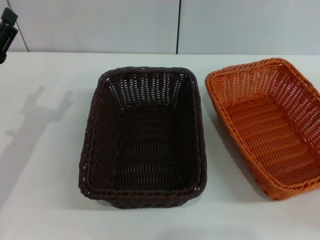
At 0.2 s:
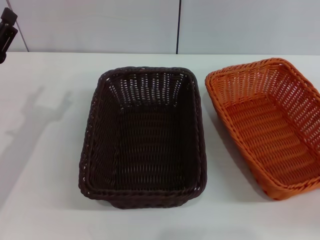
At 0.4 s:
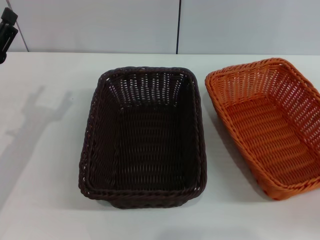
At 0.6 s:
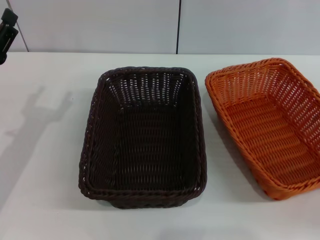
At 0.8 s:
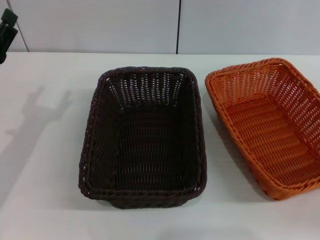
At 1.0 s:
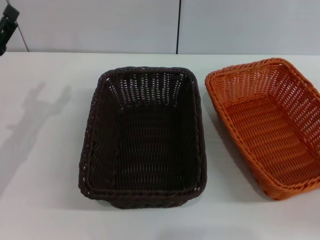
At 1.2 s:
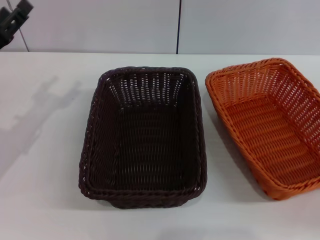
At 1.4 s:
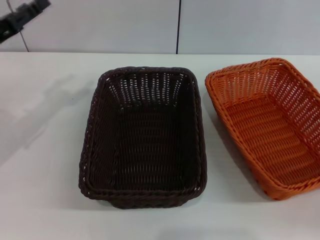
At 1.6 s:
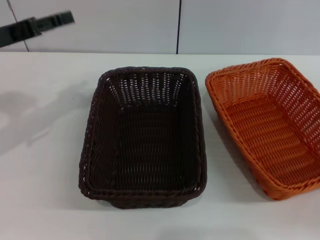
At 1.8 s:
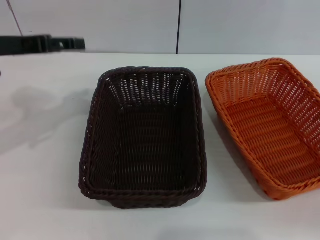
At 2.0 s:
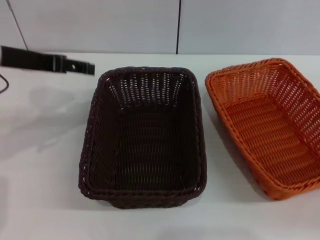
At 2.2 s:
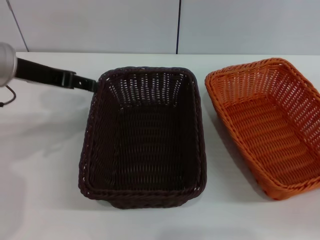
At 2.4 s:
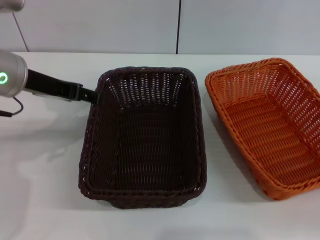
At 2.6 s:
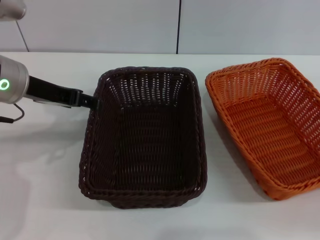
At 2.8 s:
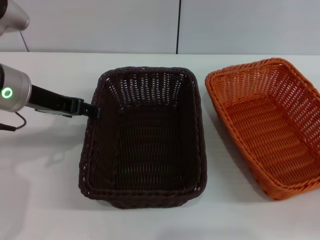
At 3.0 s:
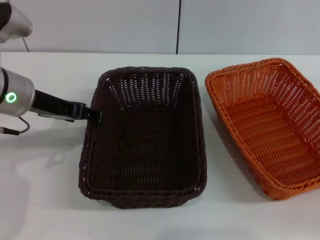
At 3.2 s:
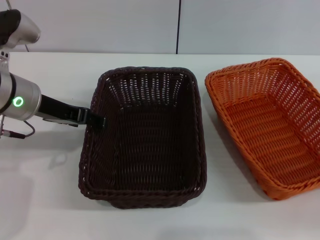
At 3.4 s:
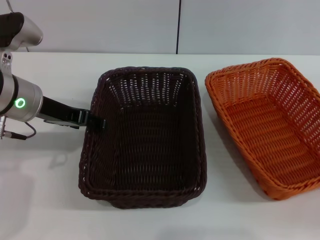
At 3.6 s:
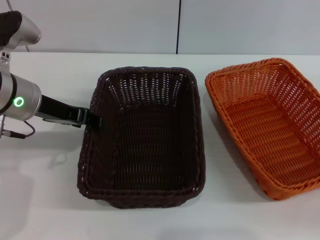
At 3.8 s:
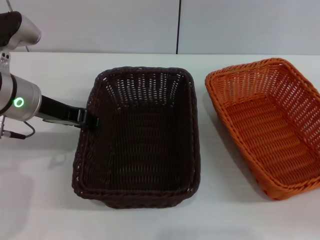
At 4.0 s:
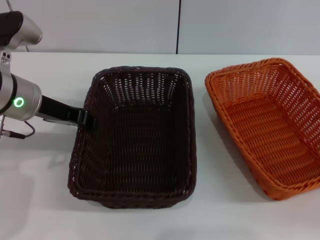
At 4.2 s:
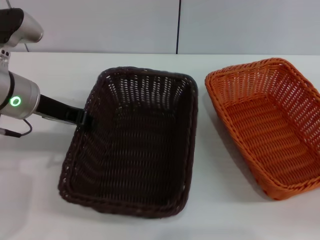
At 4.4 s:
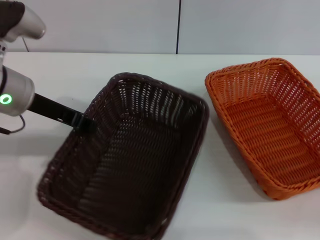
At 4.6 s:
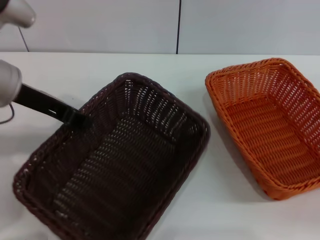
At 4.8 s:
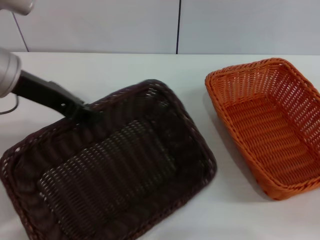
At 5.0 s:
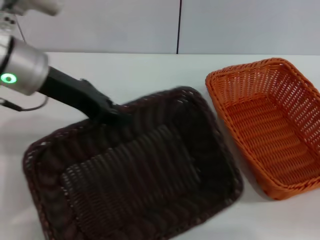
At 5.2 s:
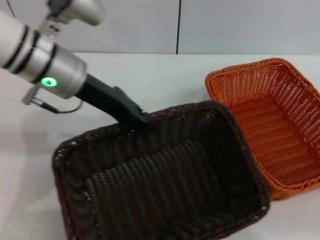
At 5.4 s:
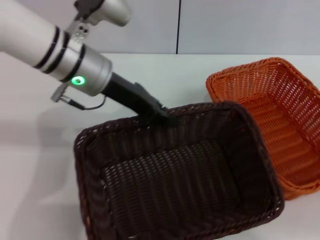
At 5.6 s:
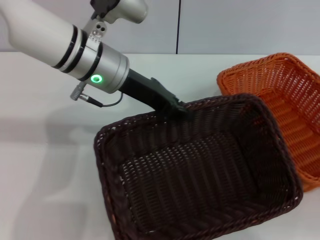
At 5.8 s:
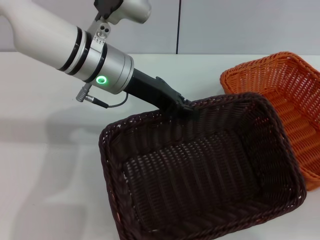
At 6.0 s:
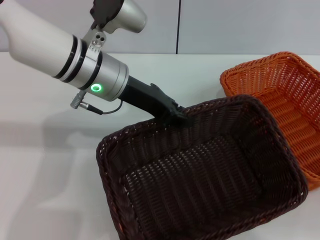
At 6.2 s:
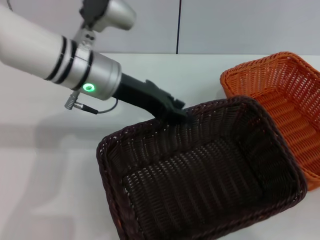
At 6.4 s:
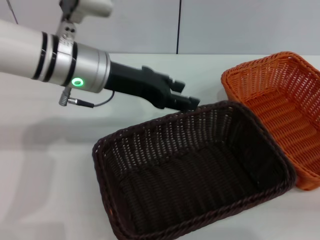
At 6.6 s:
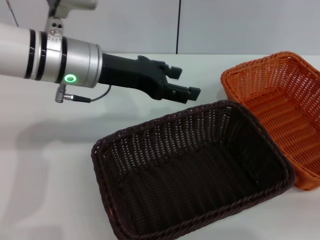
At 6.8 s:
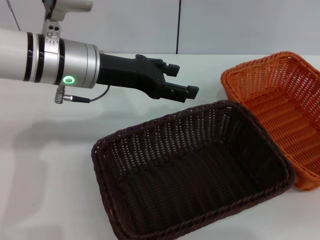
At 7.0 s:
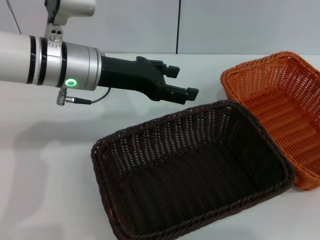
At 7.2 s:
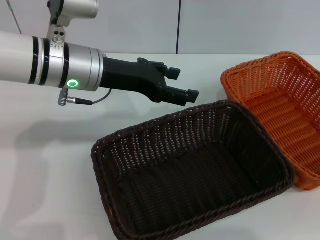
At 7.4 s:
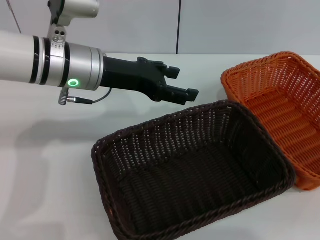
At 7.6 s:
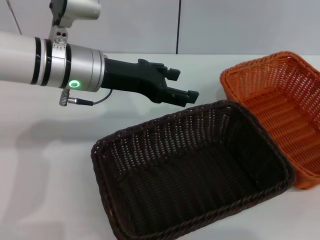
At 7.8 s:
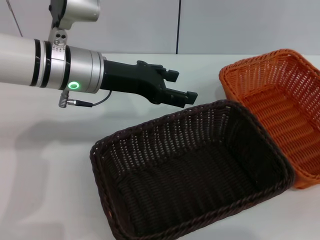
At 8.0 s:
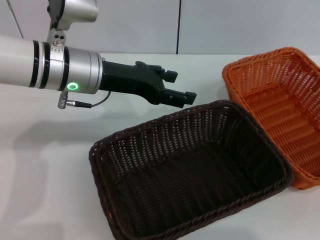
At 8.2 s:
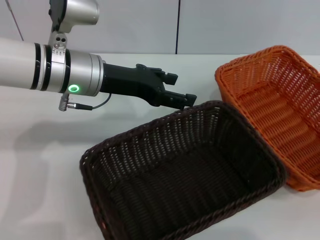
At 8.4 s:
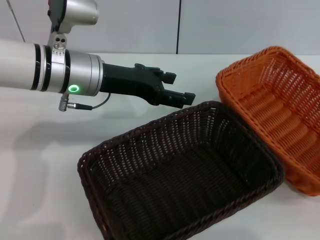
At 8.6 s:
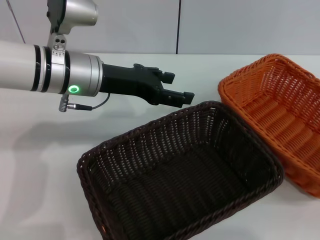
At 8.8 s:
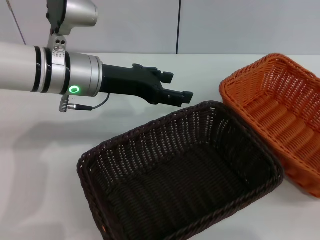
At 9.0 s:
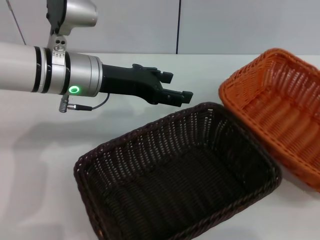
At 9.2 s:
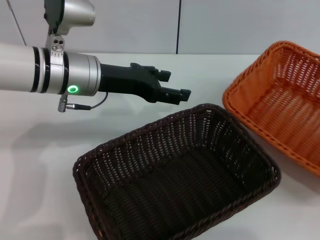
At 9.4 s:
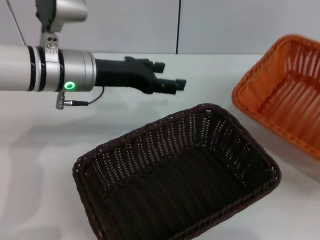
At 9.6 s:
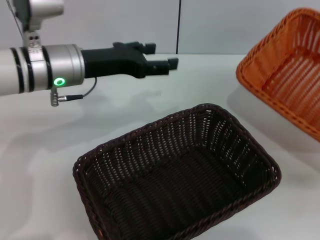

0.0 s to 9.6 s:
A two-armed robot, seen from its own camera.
Step, 0.0 to 4.6 s: Pick up the dark basket with the left gripper.
Step, 4.8 to 6.2 s: Place the dark basket in the center of view with the left gripper.
Step, 6.6 to 9.2 s: Pick up the light basket with the right gripper.
0.0 to 1.6 s: The left gripper travels upward and forward by about 10 cm.
1.6 to 3.2 s: The left gripper shifts roughly 10 cm to the right.
3.2 to 4.8 s: The left gripper shifts some 5 cm upward, and closes up.
4.8 to 6.4 s: The left gripper shifts approximately 10 cm to the right, and opens.
6.4 to 8.0 s: The left gripper opens up.
8.0 to 9.6 s: The right gripper ends up roughly 5 cm from where it was, and closes.

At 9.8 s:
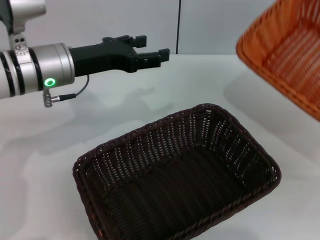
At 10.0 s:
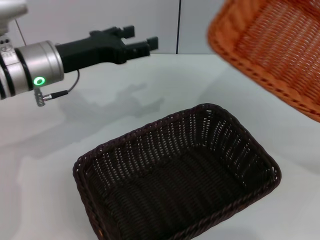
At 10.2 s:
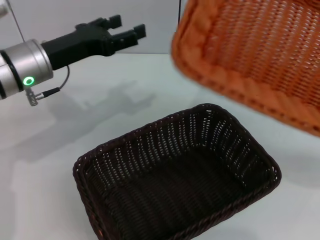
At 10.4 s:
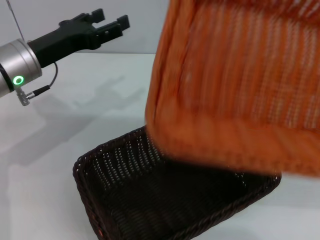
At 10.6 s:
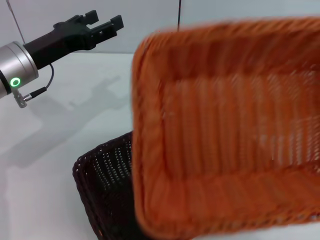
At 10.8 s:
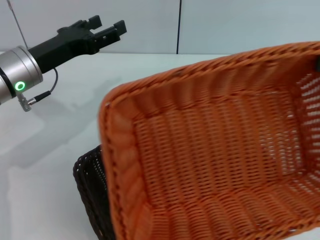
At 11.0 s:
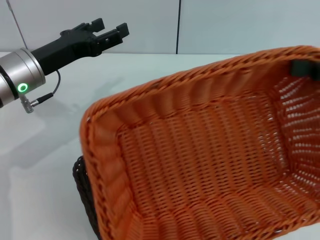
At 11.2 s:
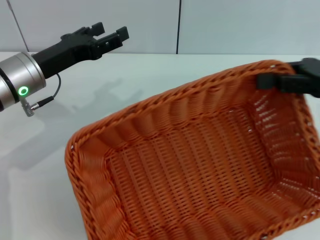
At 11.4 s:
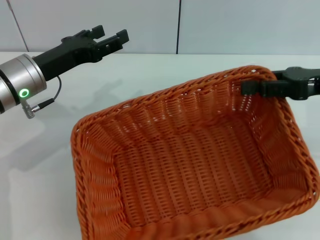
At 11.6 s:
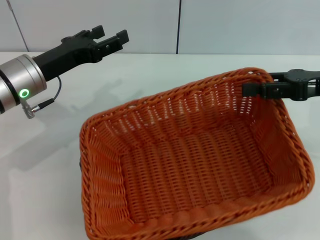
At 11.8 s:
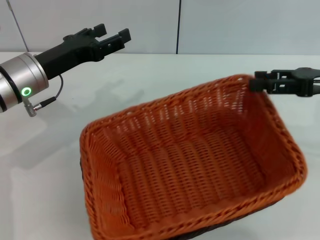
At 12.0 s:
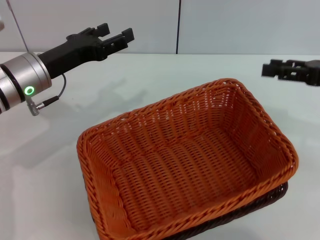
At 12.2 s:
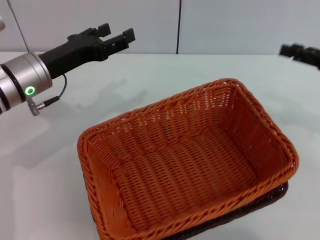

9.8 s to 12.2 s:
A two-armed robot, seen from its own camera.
Step, 9.8 to 11.8 s: Place the light basket on the dark basket with the right gripper.
9.8 to 11.0 s: The right gripper goes roughly 15 cm to the left, forward and upward.
11.0 to 12.2 s: The right gripper heads downward, covering about 5 cm, and opens.
